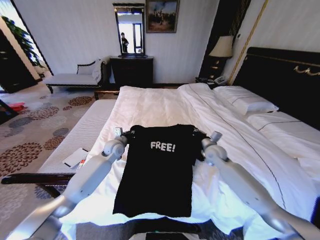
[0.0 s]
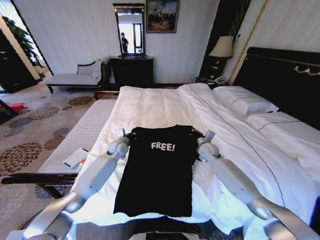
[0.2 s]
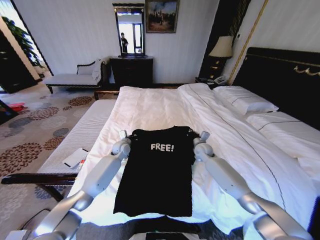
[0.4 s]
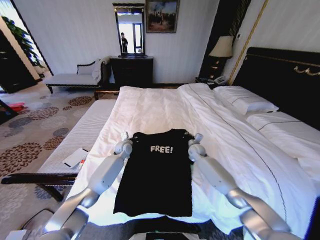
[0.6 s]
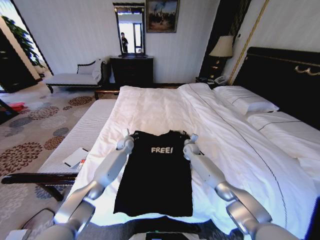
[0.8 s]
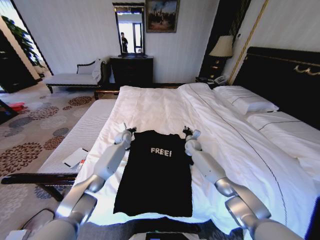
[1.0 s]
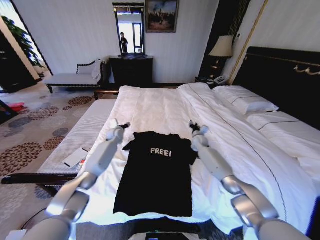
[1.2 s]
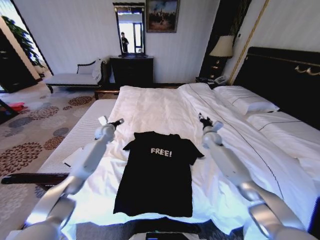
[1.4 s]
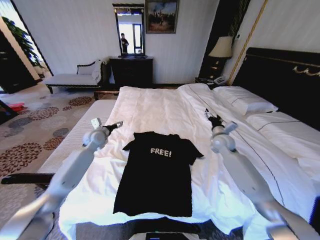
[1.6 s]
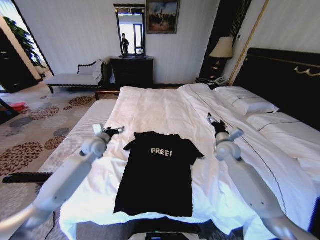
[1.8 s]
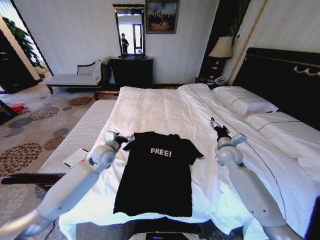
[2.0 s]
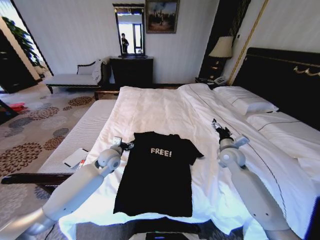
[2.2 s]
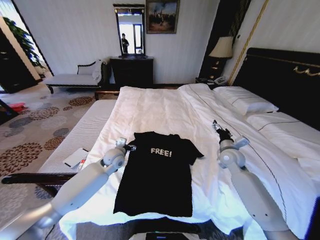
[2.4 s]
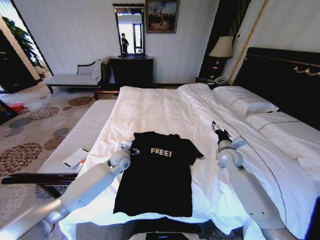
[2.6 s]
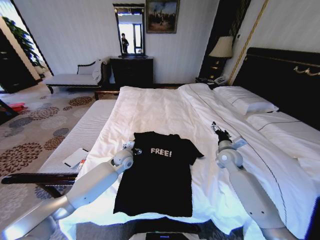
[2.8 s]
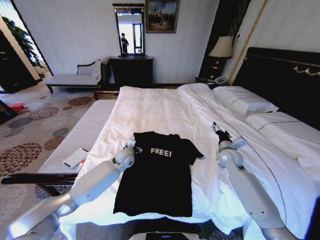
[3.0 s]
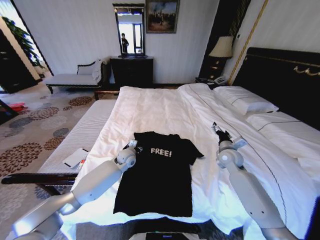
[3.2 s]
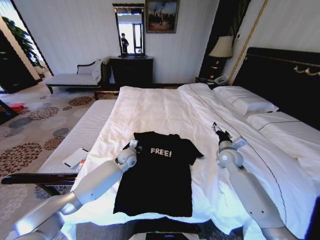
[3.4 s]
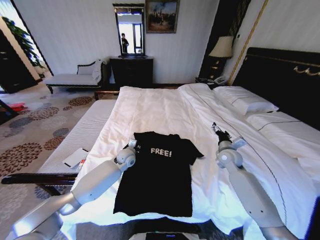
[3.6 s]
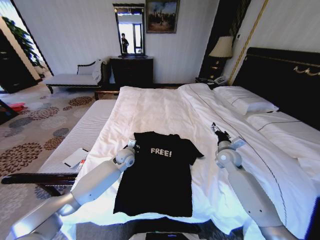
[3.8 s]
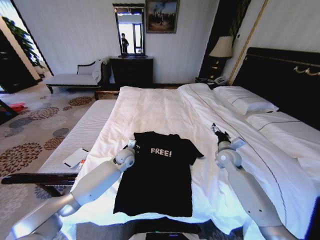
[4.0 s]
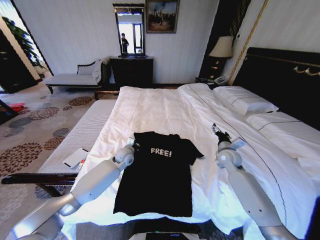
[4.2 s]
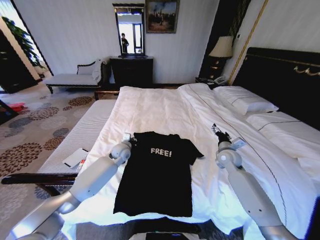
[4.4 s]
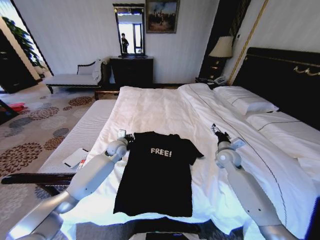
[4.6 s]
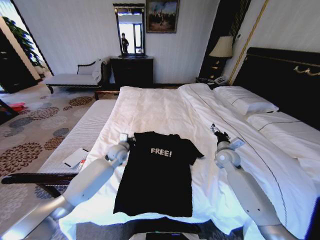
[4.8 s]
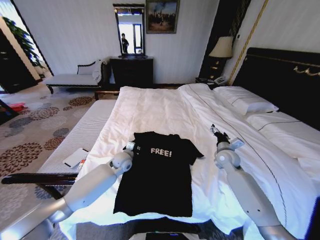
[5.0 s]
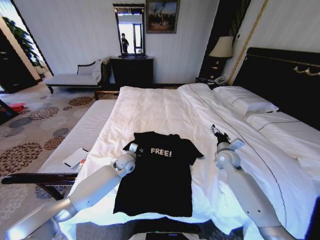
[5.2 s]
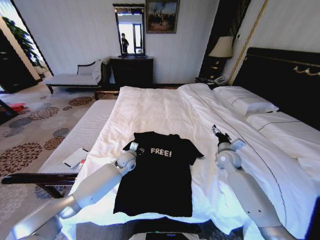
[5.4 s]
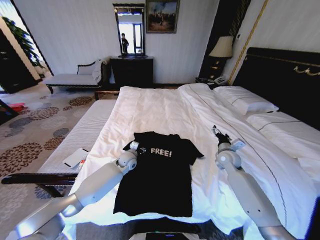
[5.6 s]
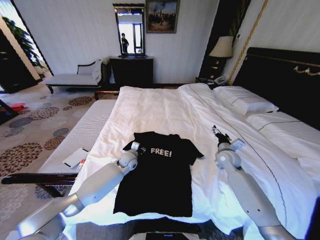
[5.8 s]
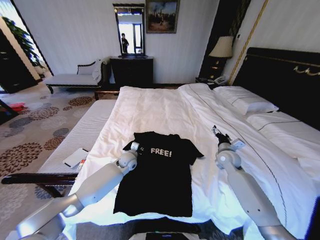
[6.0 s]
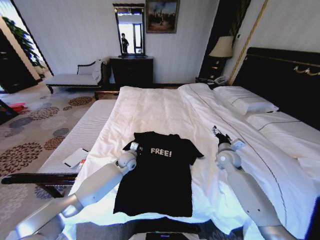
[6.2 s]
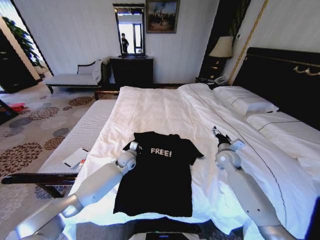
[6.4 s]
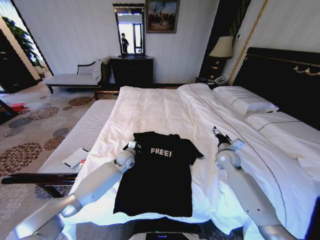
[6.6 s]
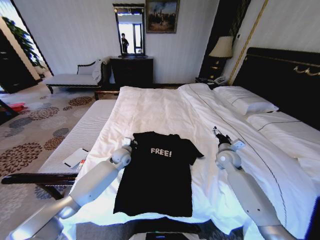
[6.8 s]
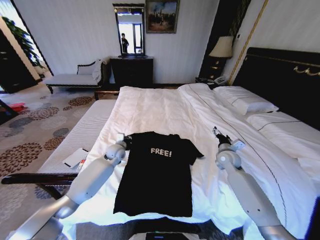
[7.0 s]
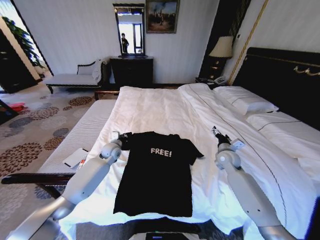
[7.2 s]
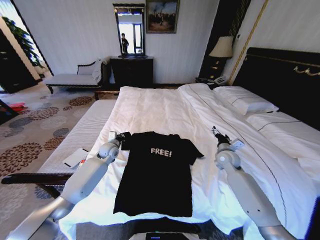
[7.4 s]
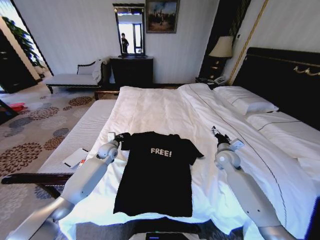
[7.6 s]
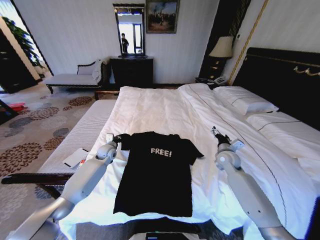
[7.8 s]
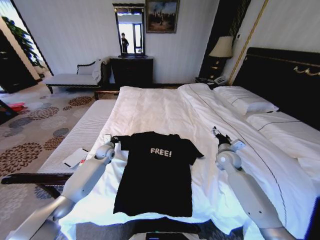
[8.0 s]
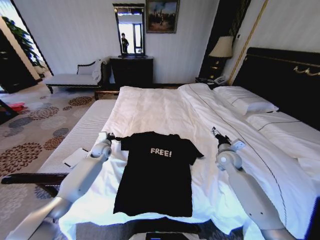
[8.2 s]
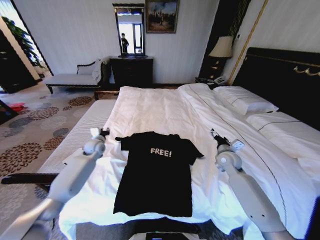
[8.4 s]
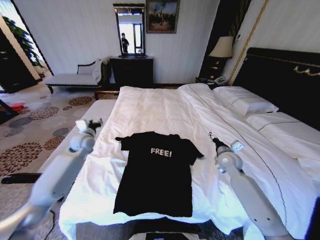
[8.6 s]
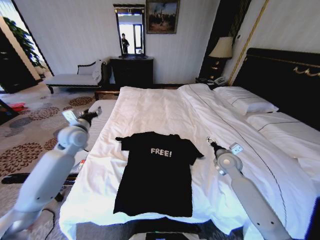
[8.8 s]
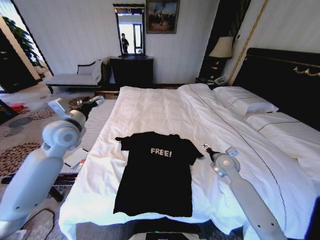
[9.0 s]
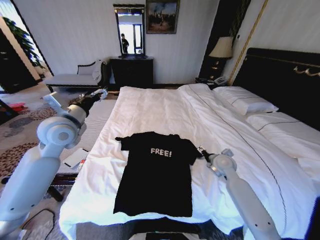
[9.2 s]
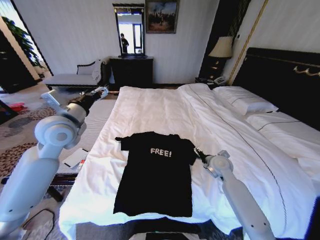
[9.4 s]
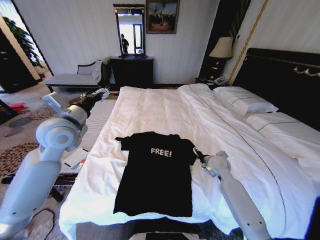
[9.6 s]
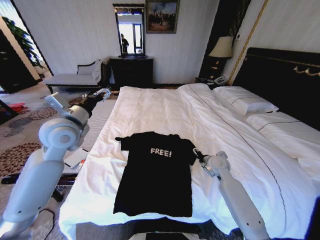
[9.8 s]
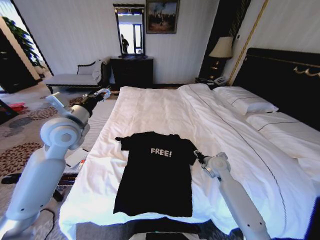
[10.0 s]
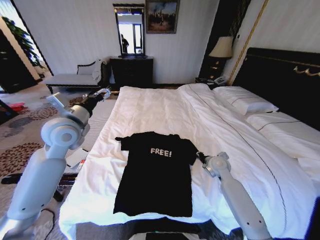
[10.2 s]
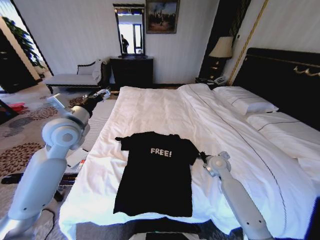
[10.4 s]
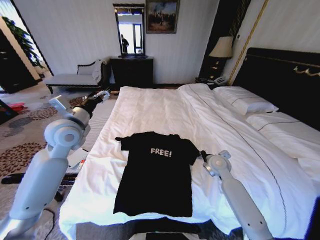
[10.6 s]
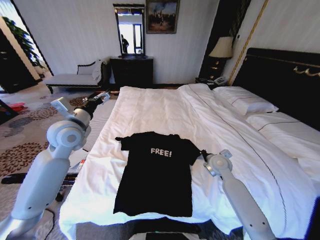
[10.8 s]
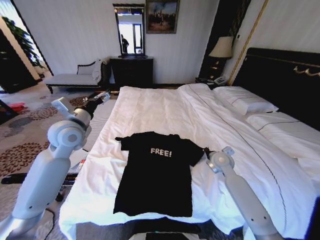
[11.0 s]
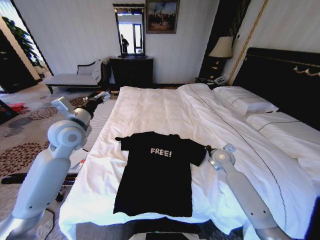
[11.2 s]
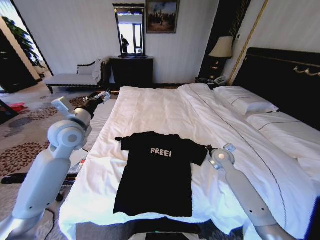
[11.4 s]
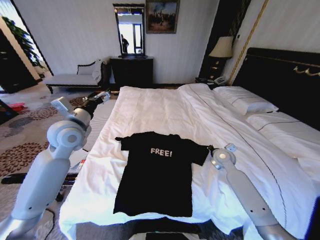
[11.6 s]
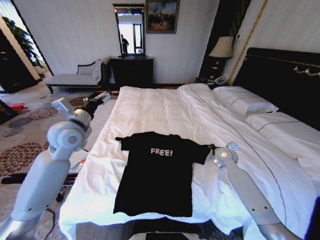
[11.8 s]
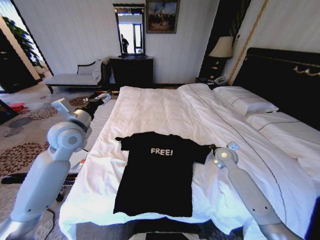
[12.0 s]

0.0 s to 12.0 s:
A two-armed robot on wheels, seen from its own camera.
Task of the whole recording: Fold the clothes on the bed.
0.0 to 1.6 s: The left gripper heads to the left and upward, covering about 10 cm, and opens. Meanwhile the right gripper moves approximately 10 cm downward and comes back, and opens up.
1.6 to 3.0 s: The left gripper travels to the right and downward by approximately 15 cm. The right gripper heads backward, covering some 5 cm.
3.0 to 4.4 s: The left gripper closes.
4.4 to 6.0 s: The left gripper is displaced downward by roughly 5 cm, and opens.
6.0 to 7.6 s: The left gripper moves to the left, about 10 cm, and closes.
7.6 to 9.0 s: The left gripper shifts approximately 25 cm upward and backward, and opens its fingers. The right gripper shifts by some 5 cm.
9.0 to 10.4 s: The right gripper closes its fingers.
10.4 to 12.0 s: The right gripper moves some 5 cm.

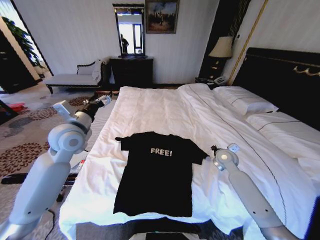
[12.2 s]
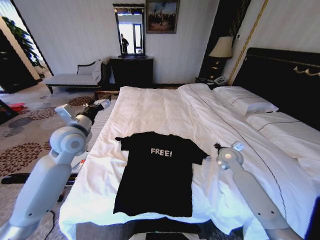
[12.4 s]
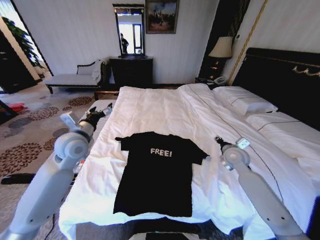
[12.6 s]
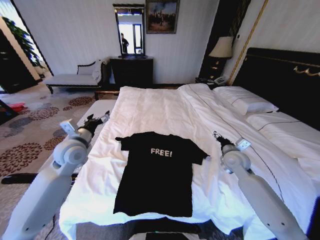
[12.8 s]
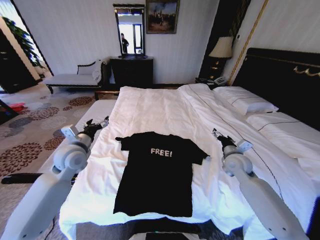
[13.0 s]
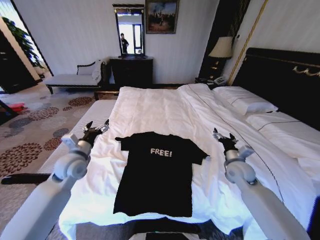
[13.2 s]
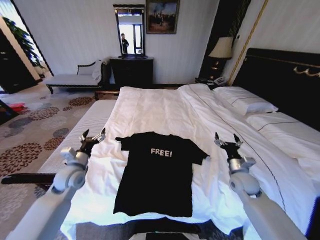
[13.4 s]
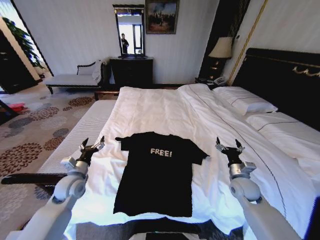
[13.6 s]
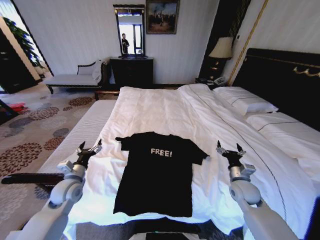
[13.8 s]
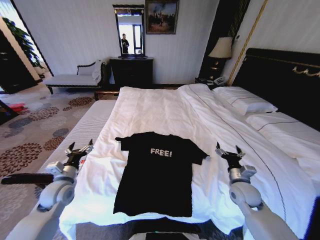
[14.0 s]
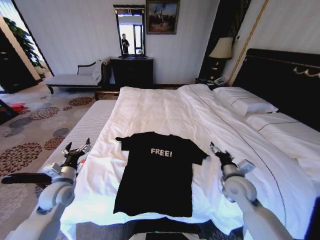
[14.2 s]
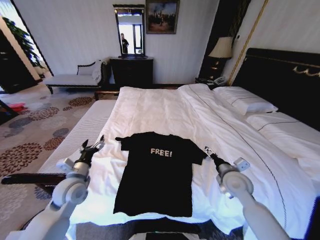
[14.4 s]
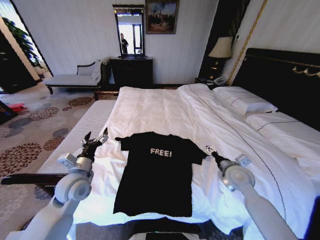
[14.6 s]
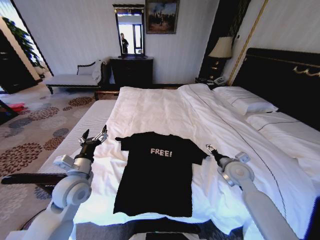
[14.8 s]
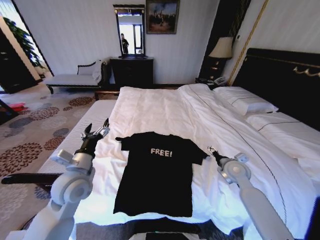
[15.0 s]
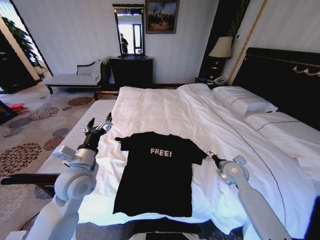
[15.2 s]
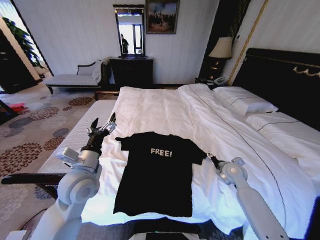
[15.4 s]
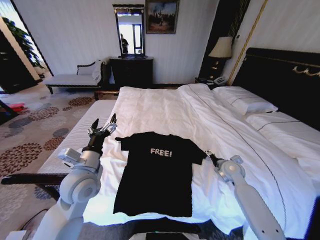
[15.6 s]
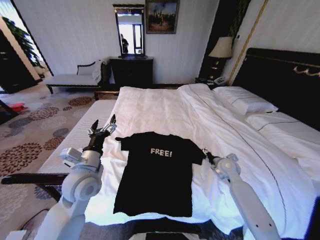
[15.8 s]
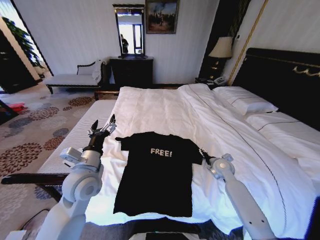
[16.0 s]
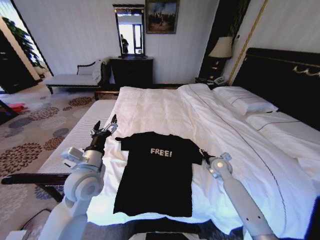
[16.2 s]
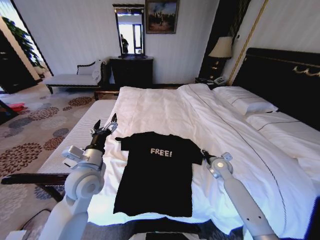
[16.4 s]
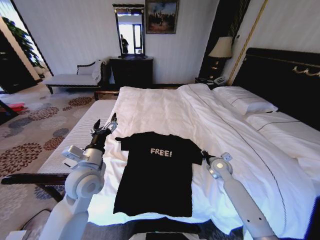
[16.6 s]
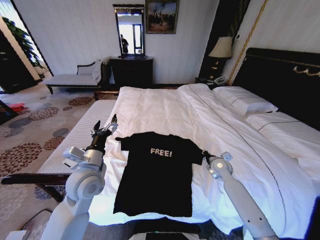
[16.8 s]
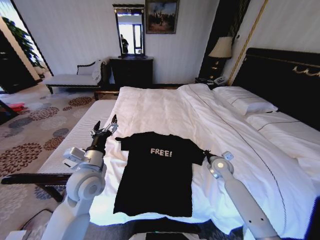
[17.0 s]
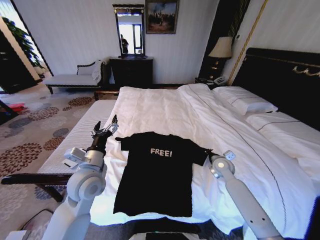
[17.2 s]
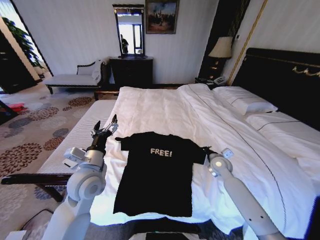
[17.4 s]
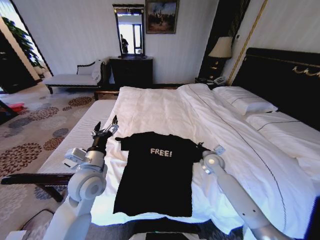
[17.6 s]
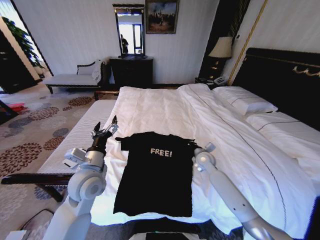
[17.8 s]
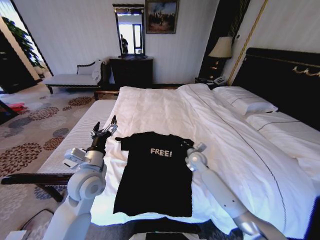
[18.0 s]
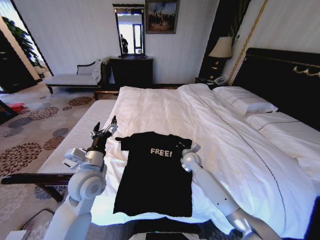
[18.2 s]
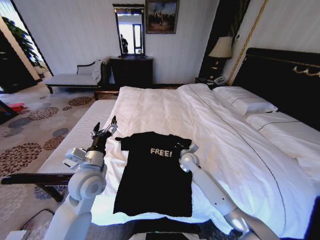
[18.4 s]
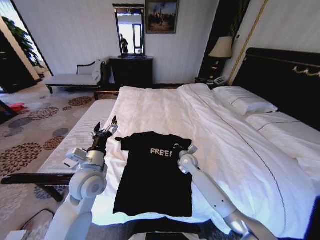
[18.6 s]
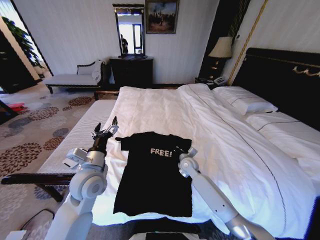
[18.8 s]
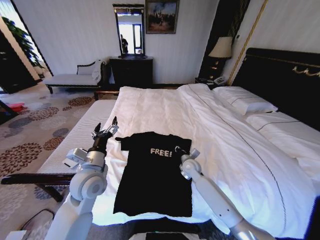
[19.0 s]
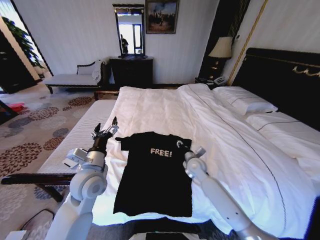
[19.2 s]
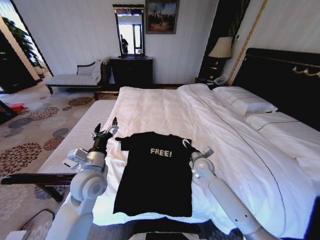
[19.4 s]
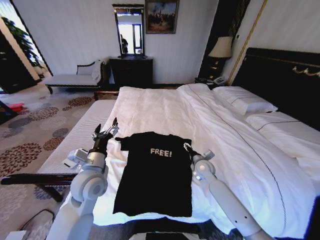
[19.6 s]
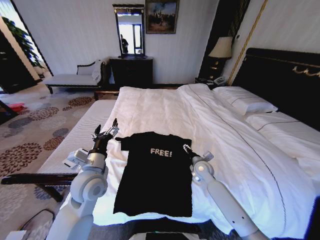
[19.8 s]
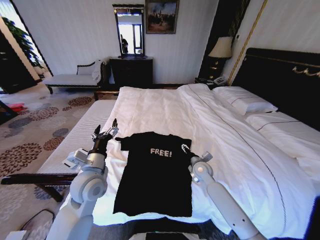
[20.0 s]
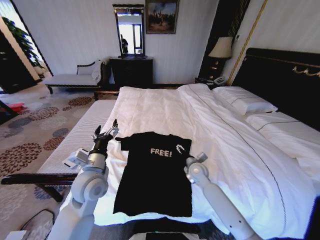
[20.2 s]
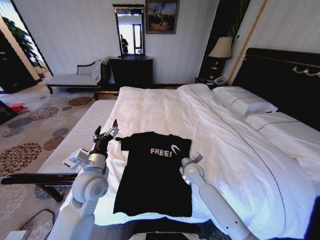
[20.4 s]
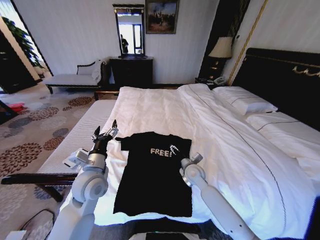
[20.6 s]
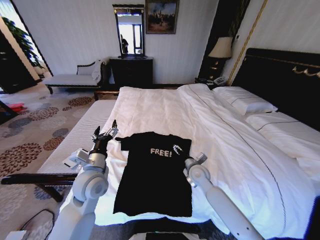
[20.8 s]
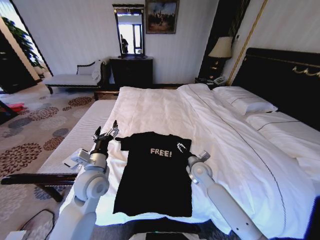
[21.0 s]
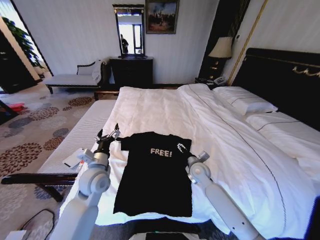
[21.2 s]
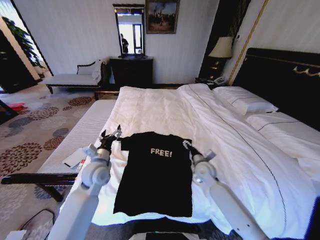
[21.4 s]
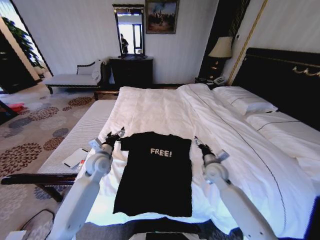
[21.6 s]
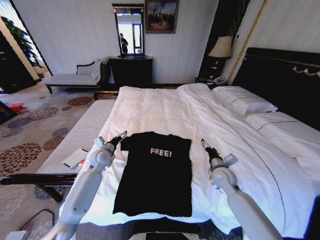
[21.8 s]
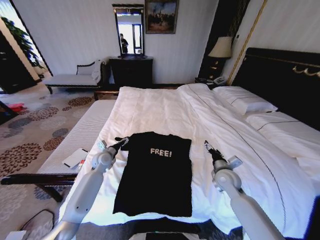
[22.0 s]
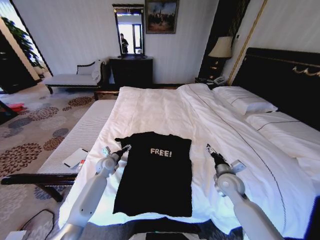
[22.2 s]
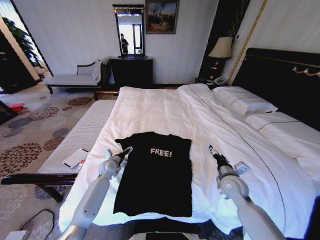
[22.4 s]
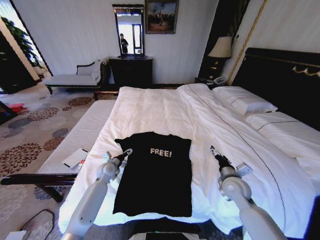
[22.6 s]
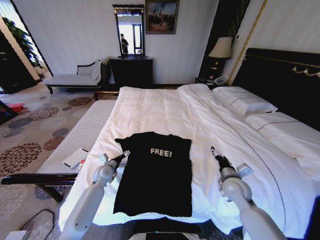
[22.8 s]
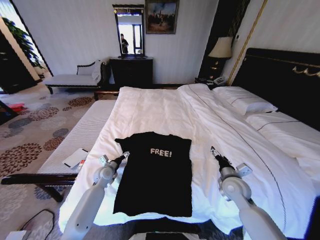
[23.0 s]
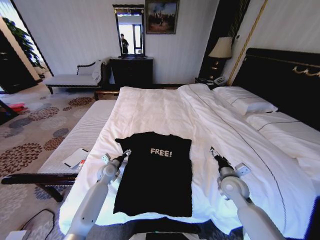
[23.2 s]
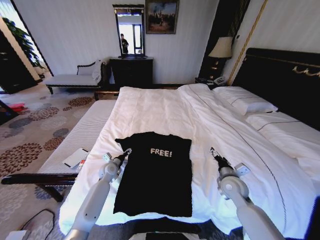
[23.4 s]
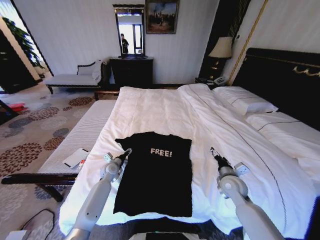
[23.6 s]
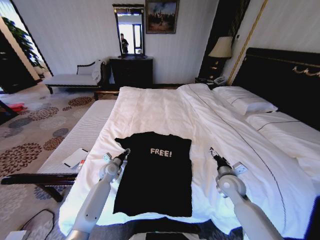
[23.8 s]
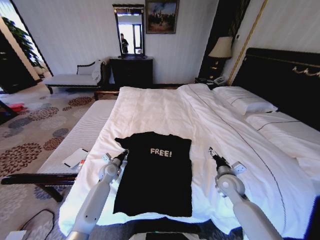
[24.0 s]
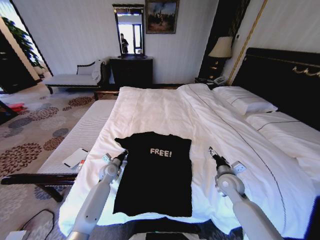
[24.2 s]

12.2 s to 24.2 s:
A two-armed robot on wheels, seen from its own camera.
Task of the whole recording: Fold the clothes on the bed.
12.2 to 13.8 s: The left gripper goes approximately 25 cm downward and backward, while the right gripper goes approximately 15 cm backward, and opens.
13.8 to 15.2 s: The left gripper goes approximately 15 cm upward and to the right. The right gripper travels forward by roughly 5 cm.
15.2 to 16.6 s: The right gripper shifts by roughly 5 cm, and closes up.
16.6 to 18.2 s: The right gripper travels to the left by approximately 15 cm, and closes up.
18.2 to 19.8 s: The right gripper is displaced backward by some 5 cm, and opens.
21.2 to 22.6 s: The left gripper shifts some 20 cm downward and forward; the right gripper goes roughly 15 cm to the right and backward.
22.6 to 24.2 s: The left gripper closes.
